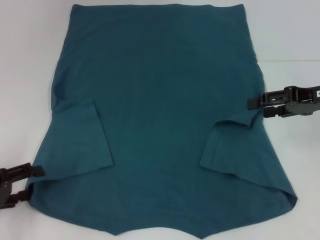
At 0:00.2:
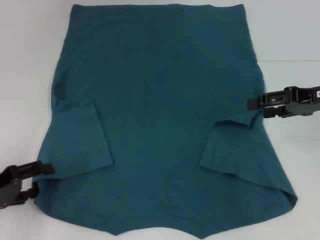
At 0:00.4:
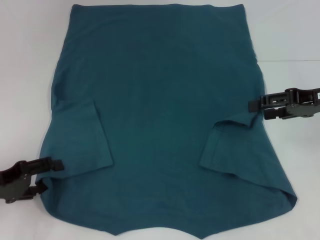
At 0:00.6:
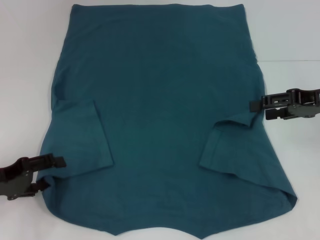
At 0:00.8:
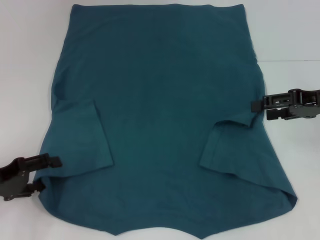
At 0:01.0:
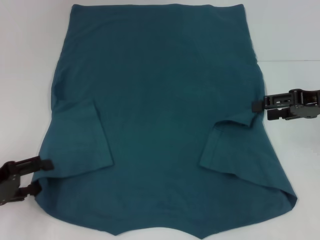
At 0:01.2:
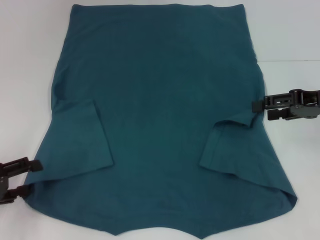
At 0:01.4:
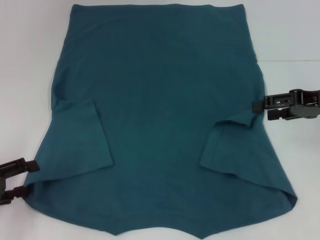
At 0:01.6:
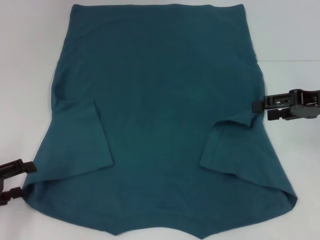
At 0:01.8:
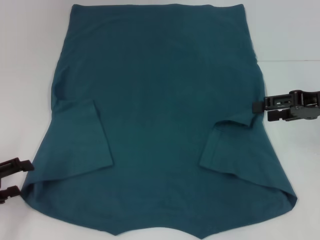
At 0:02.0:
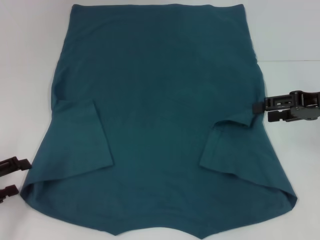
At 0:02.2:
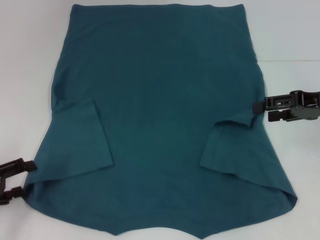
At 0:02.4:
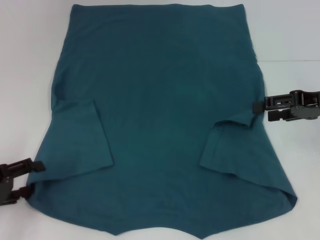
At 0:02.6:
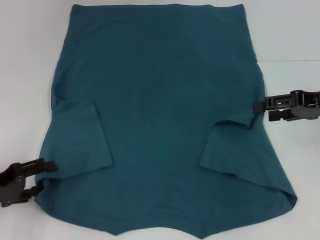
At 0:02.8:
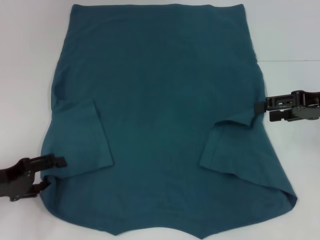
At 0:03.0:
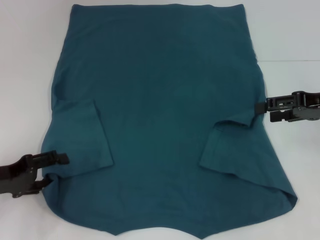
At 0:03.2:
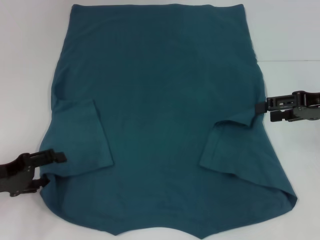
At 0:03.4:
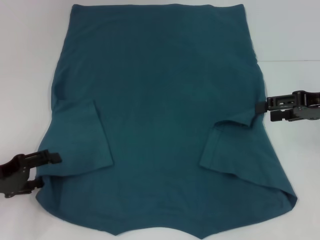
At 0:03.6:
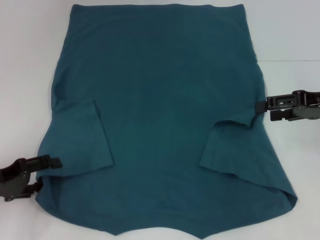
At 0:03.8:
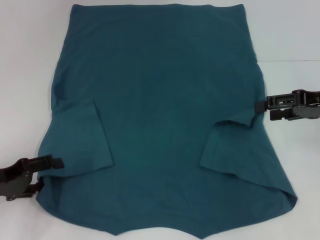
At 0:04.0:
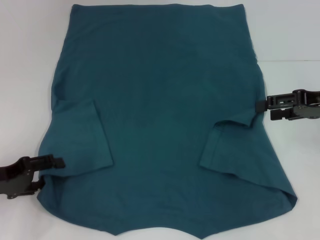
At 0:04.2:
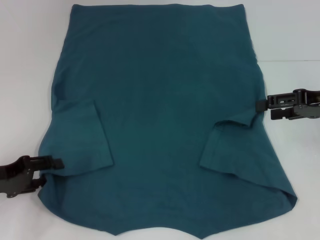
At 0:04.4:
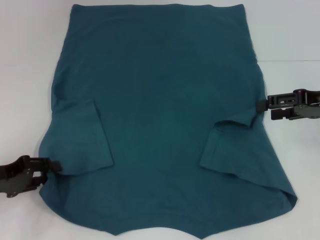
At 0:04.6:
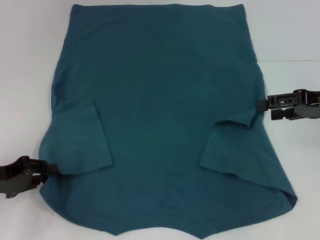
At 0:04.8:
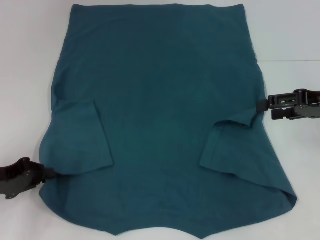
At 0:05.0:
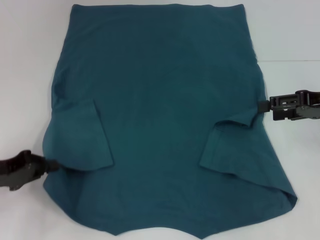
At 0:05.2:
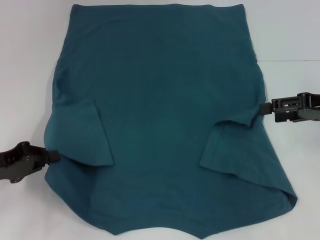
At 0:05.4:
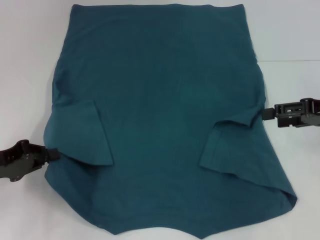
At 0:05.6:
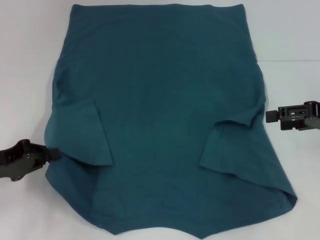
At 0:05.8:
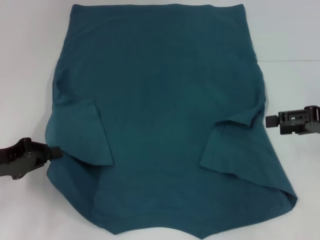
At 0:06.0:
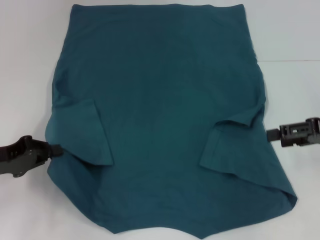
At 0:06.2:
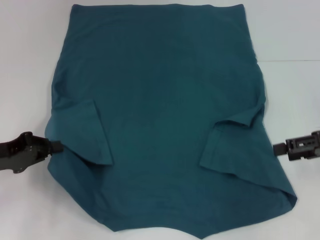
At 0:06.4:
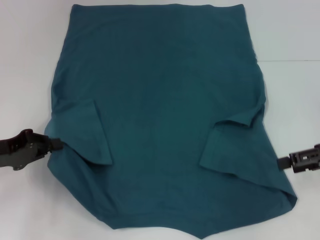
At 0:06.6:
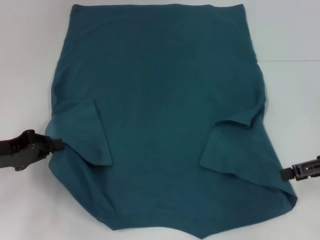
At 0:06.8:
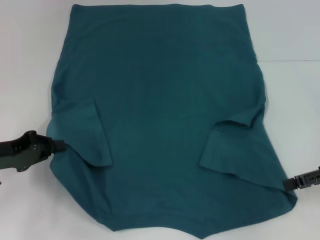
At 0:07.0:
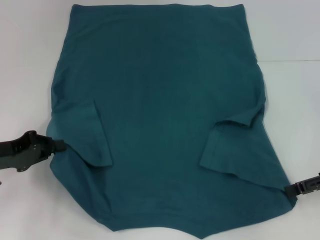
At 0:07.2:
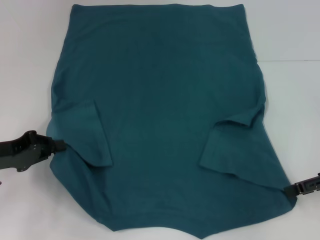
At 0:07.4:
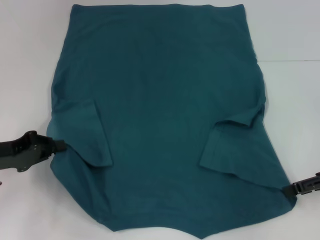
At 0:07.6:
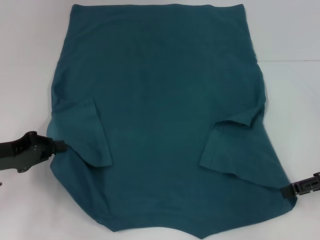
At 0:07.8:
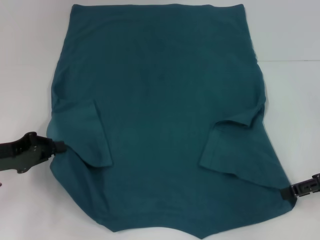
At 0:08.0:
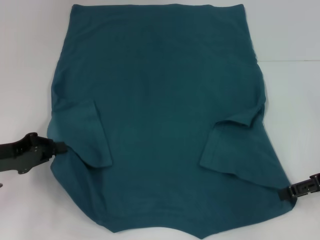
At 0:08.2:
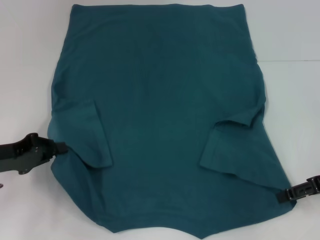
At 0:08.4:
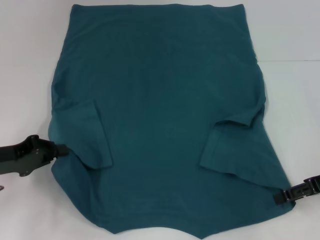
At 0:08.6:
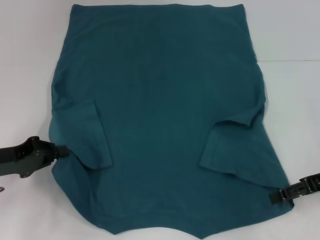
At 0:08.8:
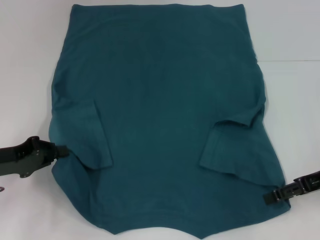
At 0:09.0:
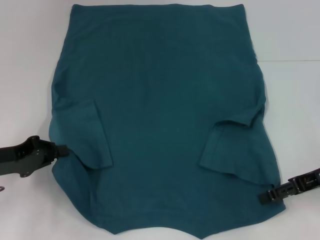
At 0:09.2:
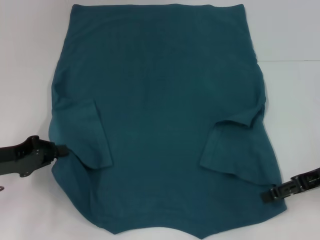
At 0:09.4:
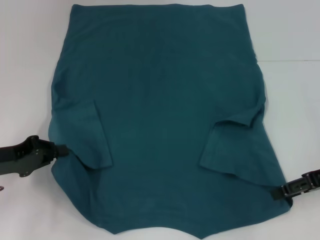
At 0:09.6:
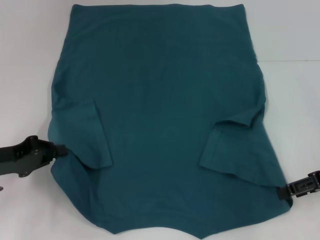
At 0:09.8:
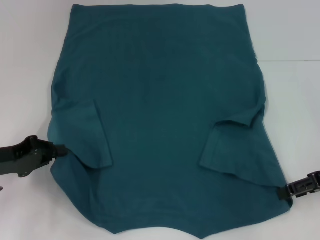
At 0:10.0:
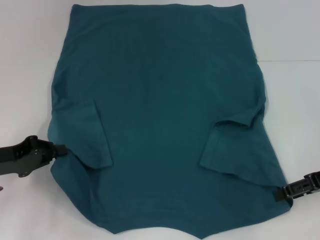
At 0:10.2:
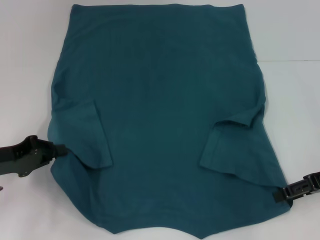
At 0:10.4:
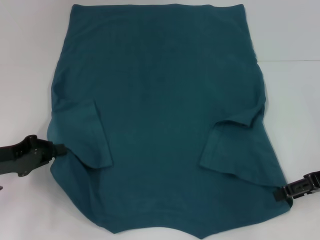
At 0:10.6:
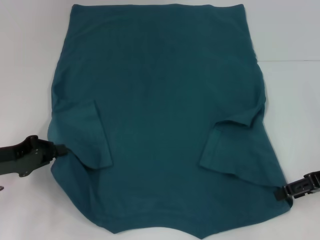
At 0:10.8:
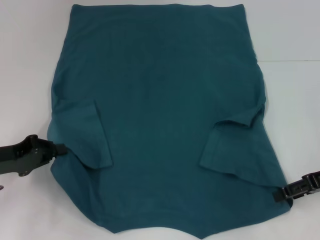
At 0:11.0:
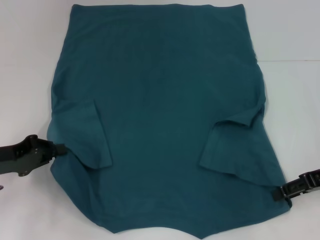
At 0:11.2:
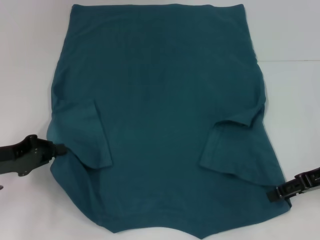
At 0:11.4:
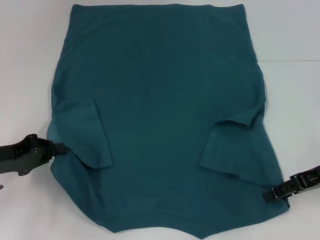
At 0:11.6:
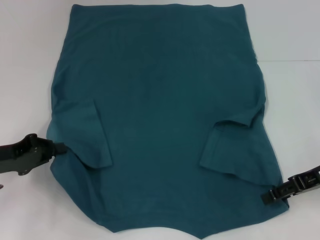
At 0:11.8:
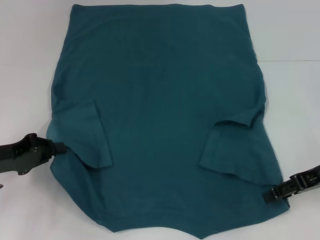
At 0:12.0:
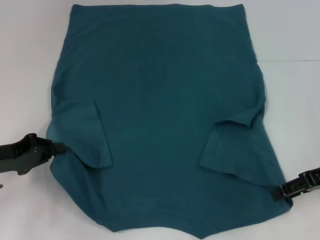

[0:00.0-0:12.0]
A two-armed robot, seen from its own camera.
Step, 0:00.0 to 0:04.6: Grab the bottom left corner with your left hand.
0:00.0 to 0:01.6: The grippers stay close to where they were, moving slightly.
0:01.6 to 0:03.0: The left gripper changes place by approximately 5 cm.
0:03.0 to 0:04.4: Both grippers stay about where they are.
0:04.4 to 0:06.0: The left gripper closes up.
0:06.0 to 0:10.4: There are only small adjustments of the grippers.
0:10.4 to 0:12.0: The grippers stay close to where they were, moving slightly.

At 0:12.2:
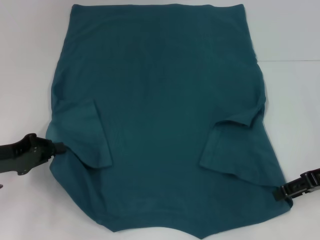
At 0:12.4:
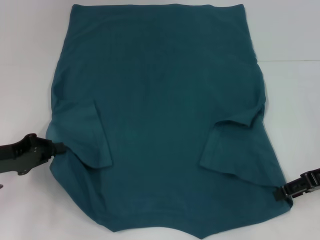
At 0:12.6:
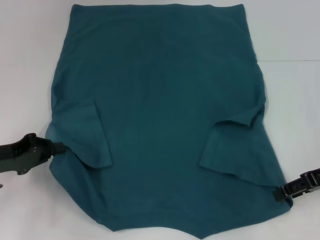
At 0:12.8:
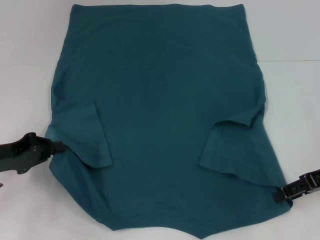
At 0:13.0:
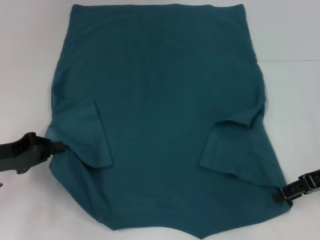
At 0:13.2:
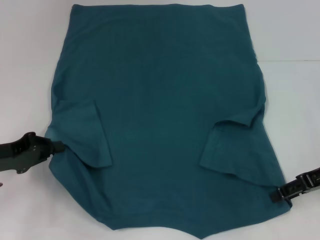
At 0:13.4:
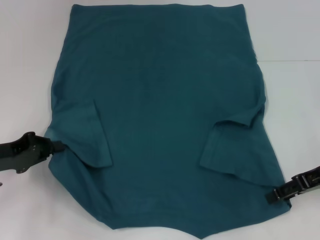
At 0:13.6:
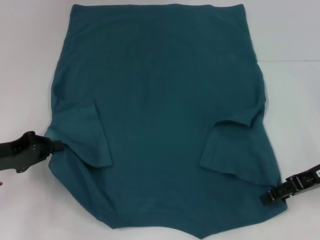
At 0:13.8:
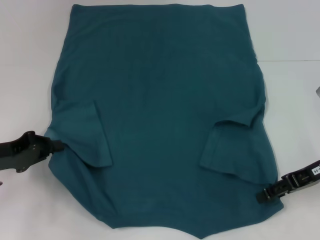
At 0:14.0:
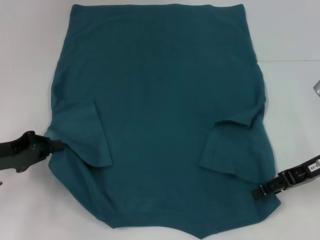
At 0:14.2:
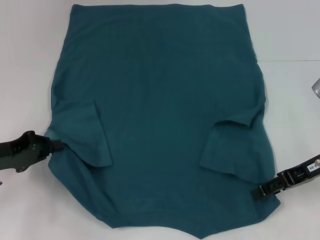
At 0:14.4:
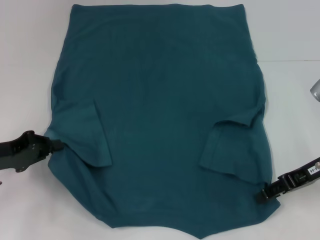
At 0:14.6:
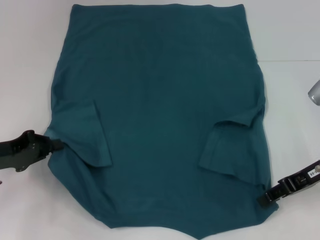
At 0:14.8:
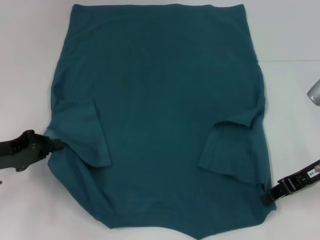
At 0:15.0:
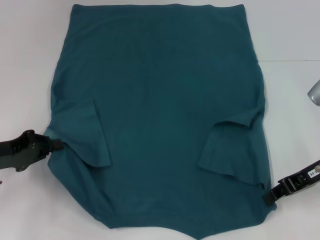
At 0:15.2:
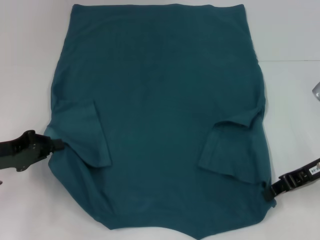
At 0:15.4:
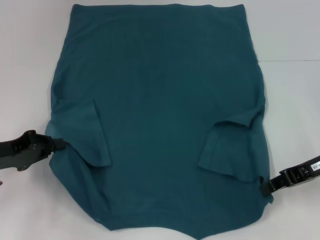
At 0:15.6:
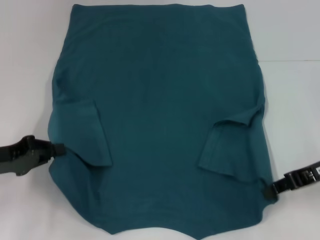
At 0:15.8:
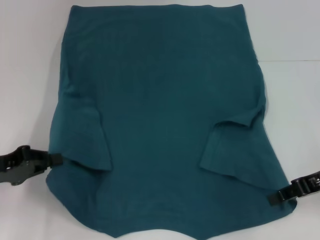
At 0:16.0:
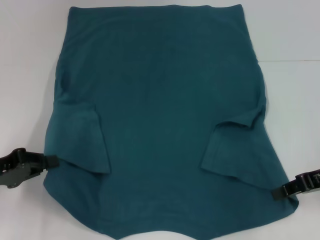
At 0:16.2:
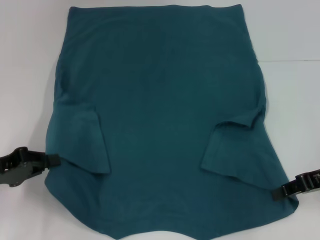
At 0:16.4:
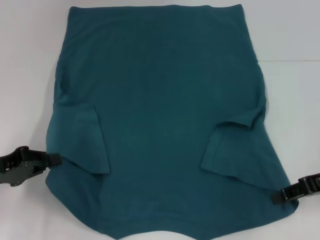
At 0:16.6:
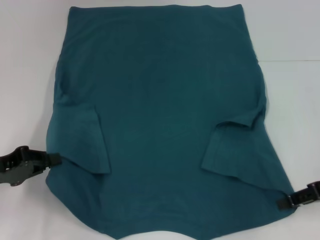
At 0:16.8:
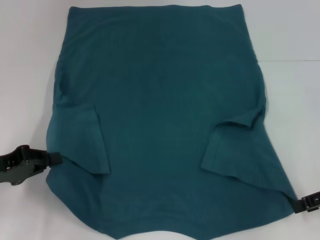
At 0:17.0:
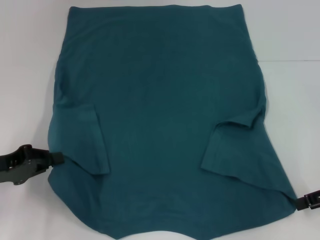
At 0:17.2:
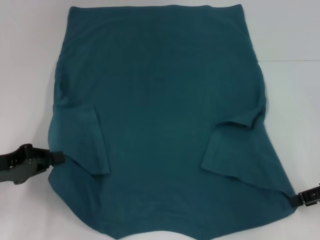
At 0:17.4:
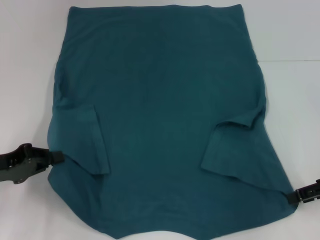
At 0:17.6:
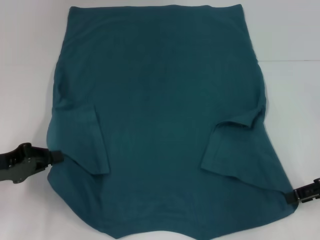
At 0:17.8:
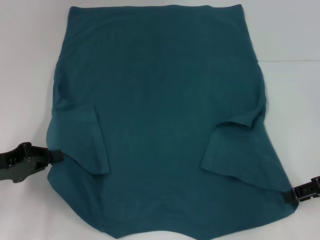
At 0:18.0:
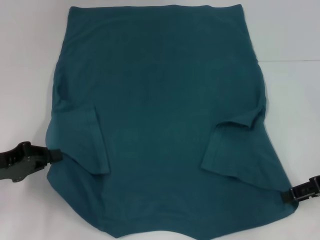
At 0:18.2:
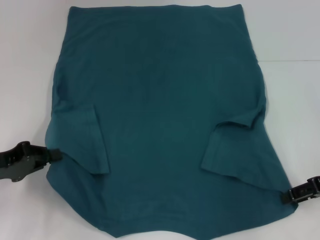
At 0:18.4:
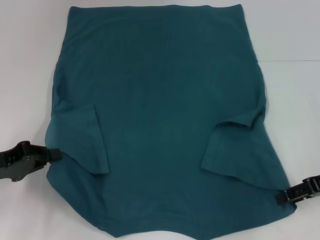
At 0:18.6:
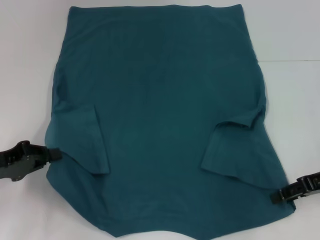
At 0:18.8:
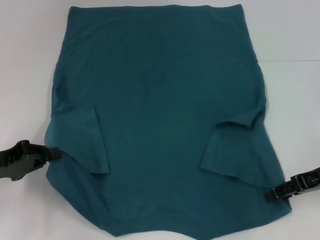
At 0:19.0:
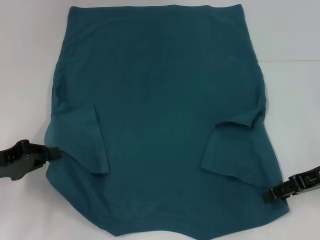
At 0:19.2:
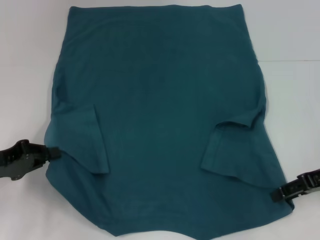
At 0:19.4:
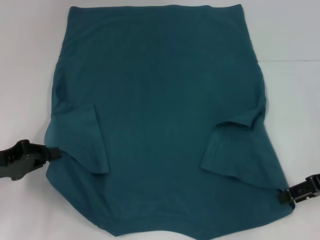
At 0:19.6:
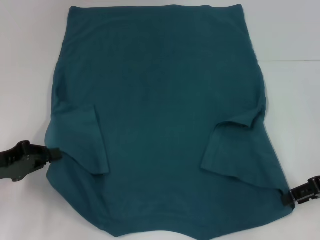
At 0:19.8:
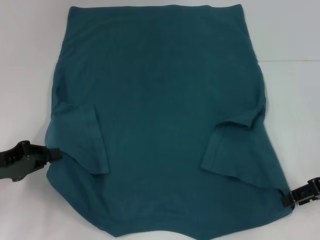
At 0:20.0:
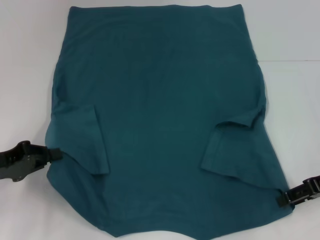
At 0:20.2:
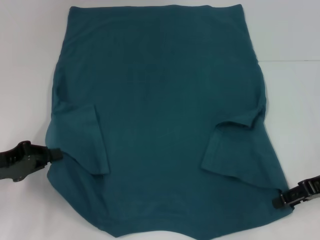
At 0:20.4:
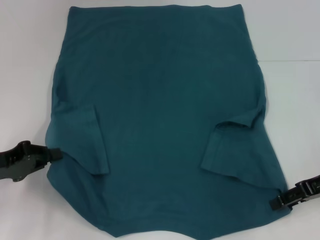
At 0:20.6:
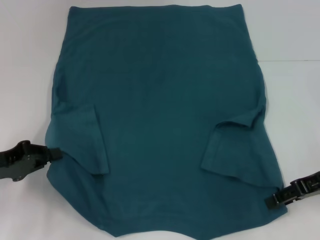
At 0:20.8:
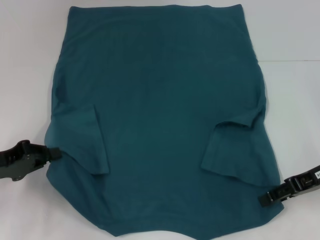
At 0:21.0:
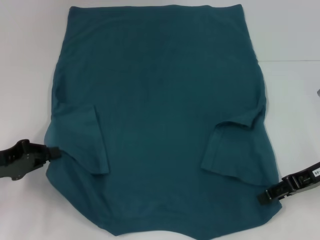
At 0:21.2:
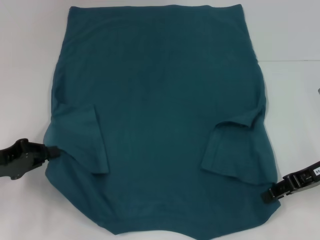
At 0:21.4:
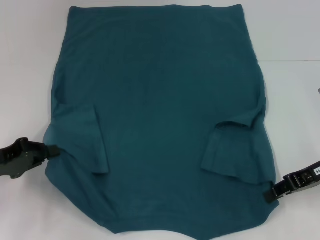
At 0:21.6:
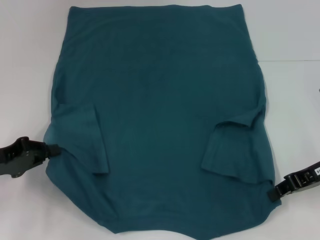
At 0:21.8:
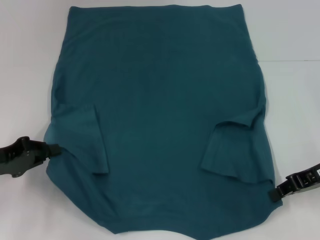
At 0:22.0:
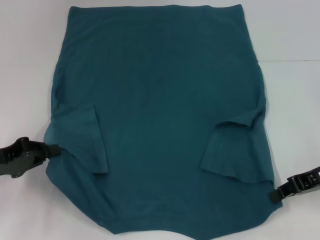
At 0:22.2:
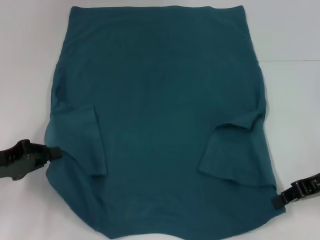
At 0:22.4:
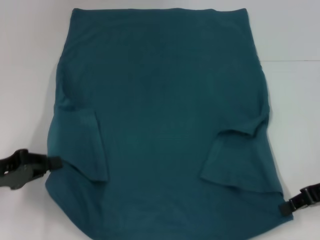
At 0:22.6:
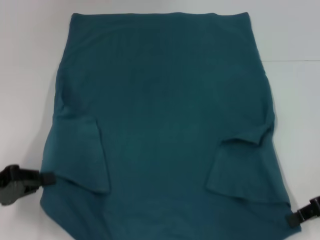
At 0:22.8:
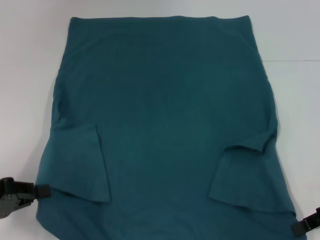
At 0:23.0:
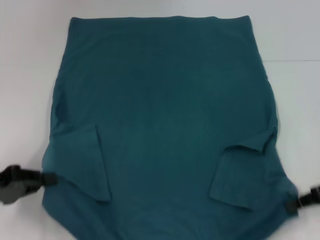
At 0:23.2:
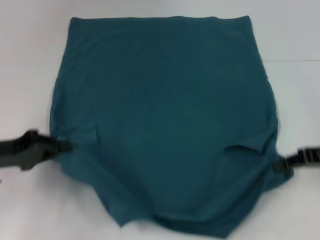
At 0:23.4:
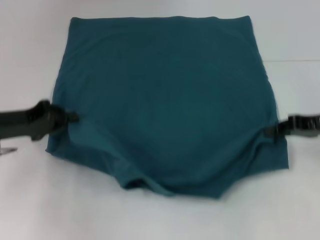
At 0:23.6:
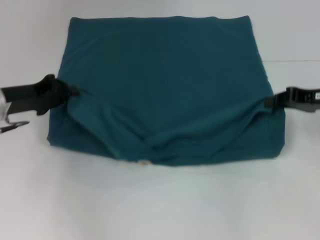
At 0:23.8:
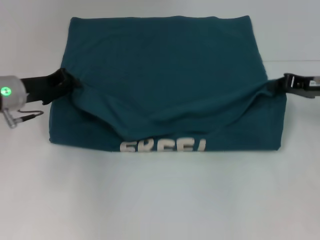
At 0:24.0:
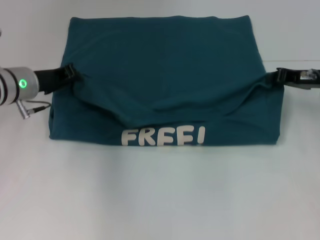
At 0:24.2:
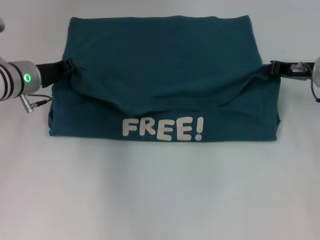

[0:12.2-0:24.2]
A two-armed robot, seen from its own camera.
Step, 0:12.2 to 0:15.0: Grab the bottom right corner with your right hand.
0:12.2 to 0:13.8: The grippers move only a little.
0:13.8 to 0:15.2: The right gripper closes up.
0:15.2 to 0:16.6: The right gripper moves approximately 5 cm.
0:16.6 to 0:18.2: The right gripper opens.
0:19.8 to 0:21.2: The grippers make only small movements.
0:21.2 to 0:22.6: The right gripper closes its fingers.
0:22.6 to 0:24.2: The right gripper moves forward, some 15 cm, while the left gripper shifts some 20 cm forward and to the right.
